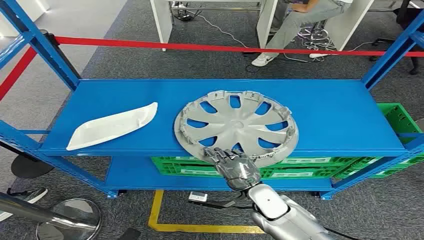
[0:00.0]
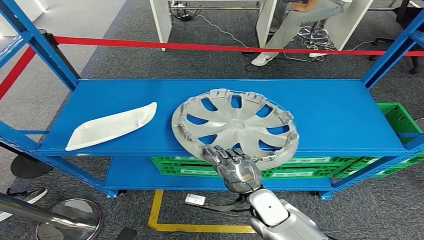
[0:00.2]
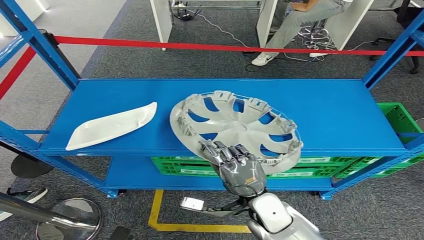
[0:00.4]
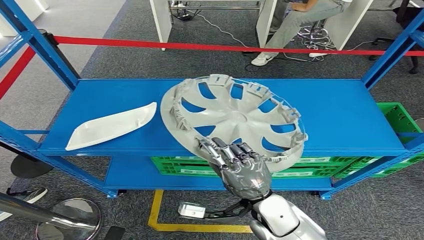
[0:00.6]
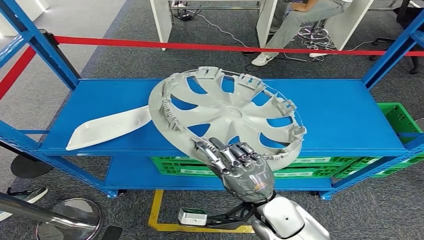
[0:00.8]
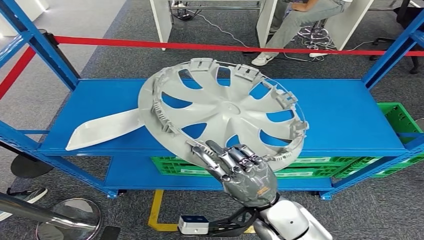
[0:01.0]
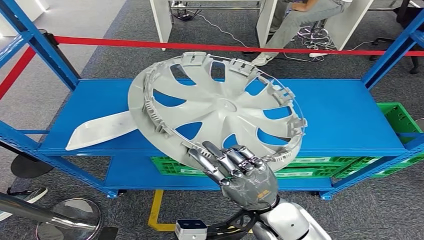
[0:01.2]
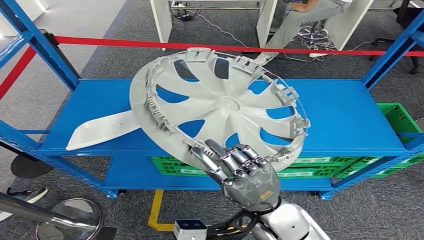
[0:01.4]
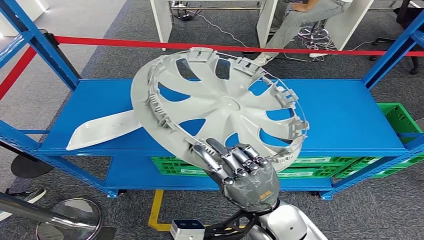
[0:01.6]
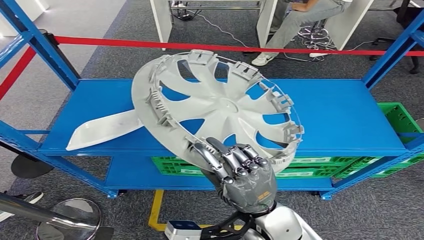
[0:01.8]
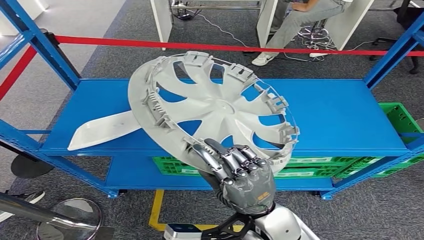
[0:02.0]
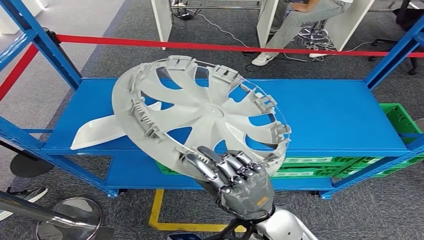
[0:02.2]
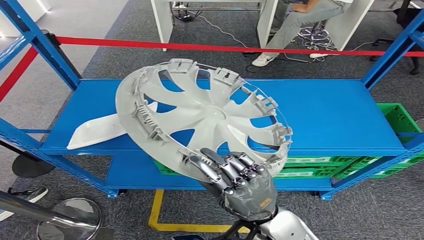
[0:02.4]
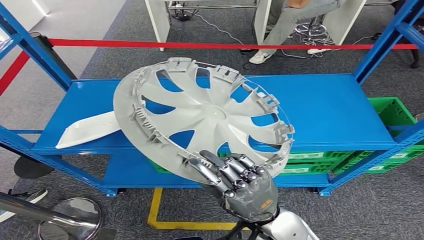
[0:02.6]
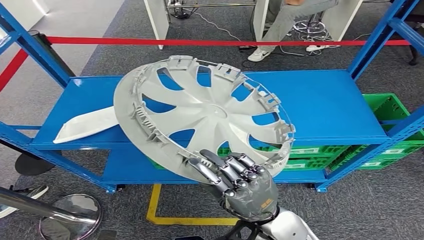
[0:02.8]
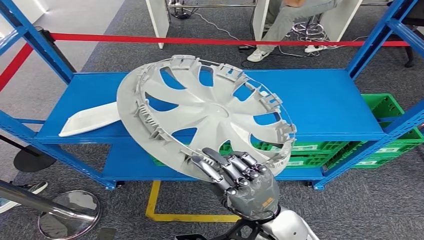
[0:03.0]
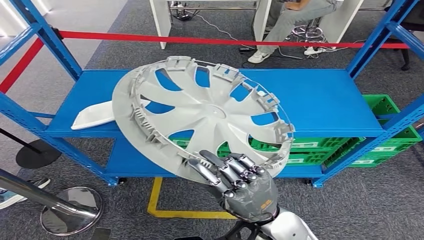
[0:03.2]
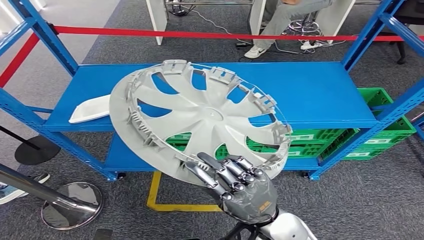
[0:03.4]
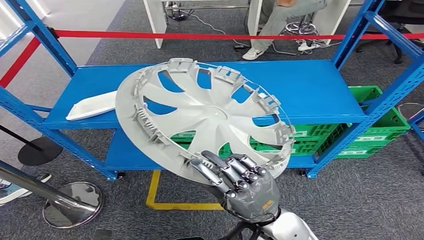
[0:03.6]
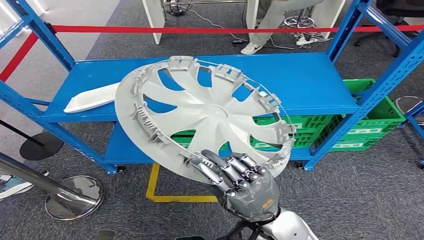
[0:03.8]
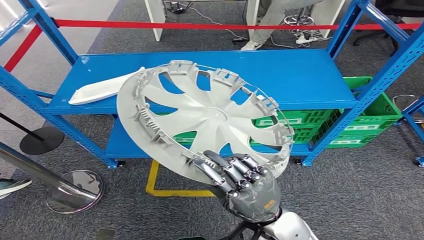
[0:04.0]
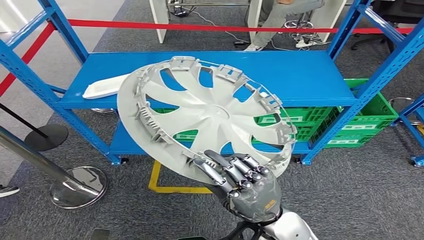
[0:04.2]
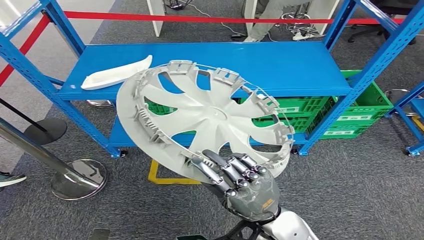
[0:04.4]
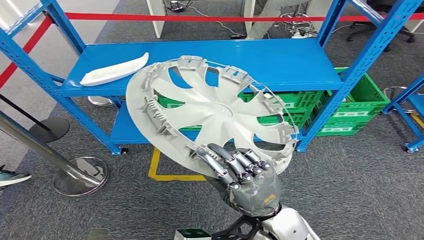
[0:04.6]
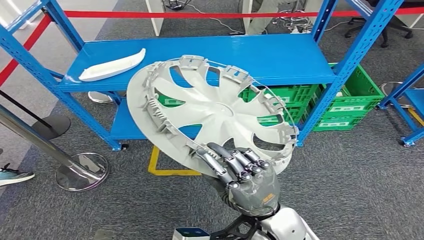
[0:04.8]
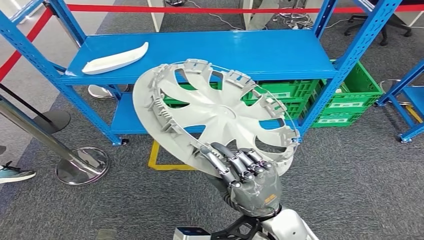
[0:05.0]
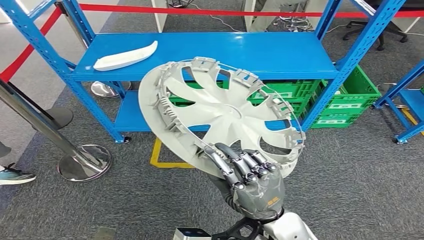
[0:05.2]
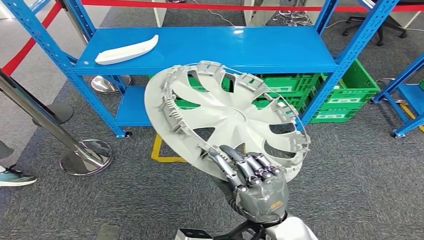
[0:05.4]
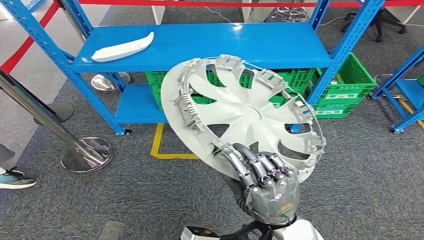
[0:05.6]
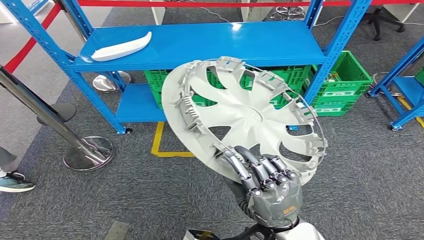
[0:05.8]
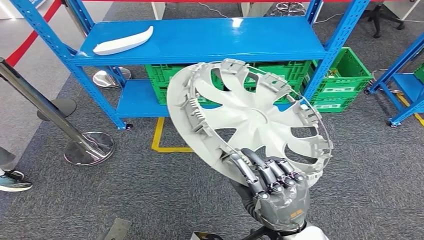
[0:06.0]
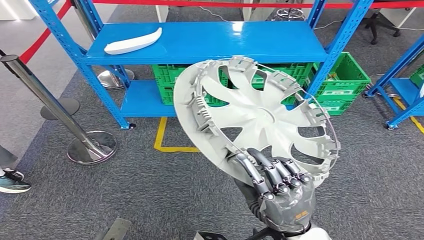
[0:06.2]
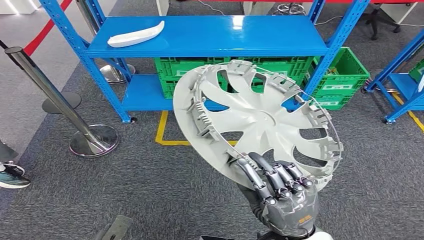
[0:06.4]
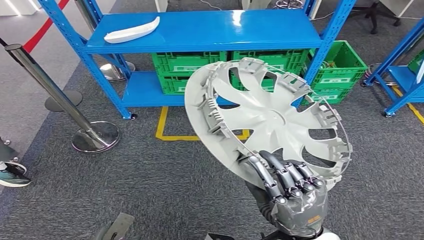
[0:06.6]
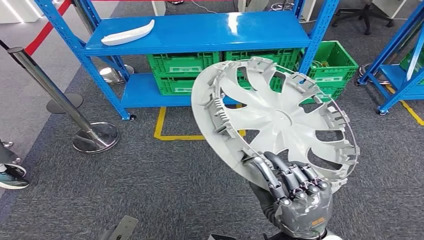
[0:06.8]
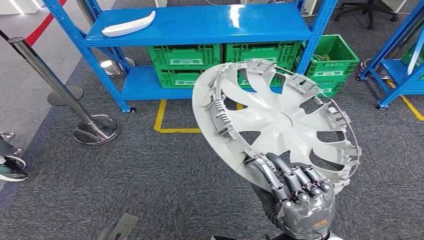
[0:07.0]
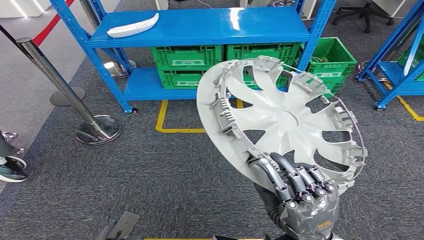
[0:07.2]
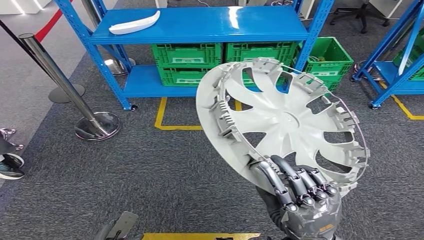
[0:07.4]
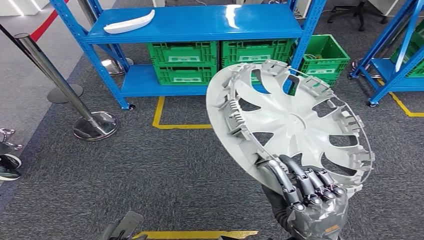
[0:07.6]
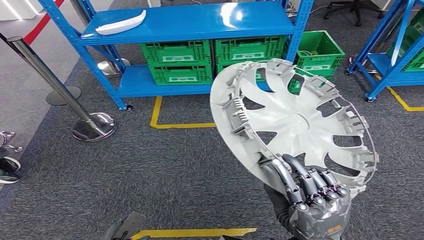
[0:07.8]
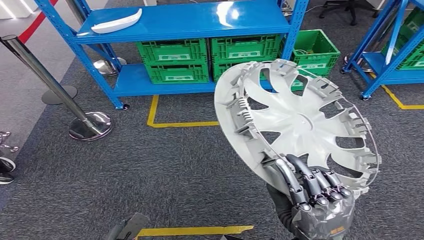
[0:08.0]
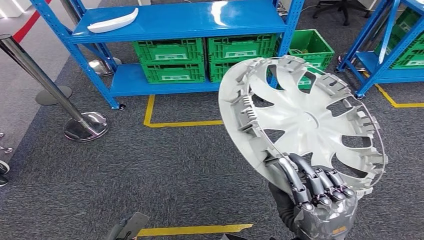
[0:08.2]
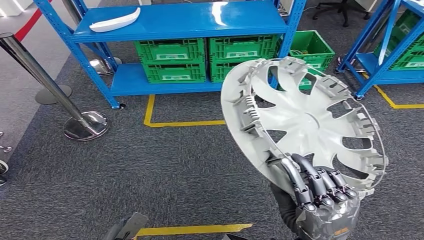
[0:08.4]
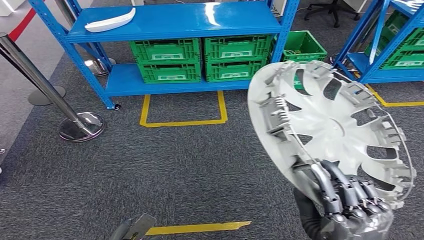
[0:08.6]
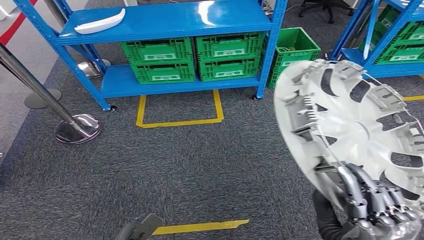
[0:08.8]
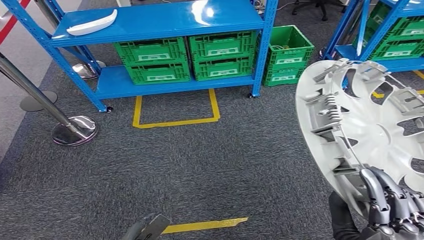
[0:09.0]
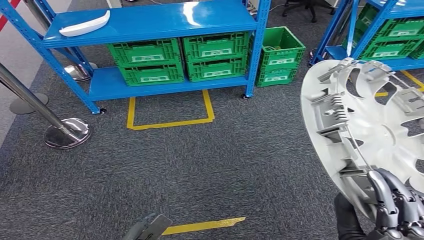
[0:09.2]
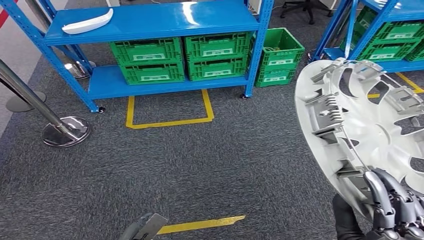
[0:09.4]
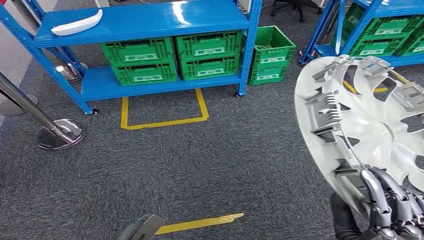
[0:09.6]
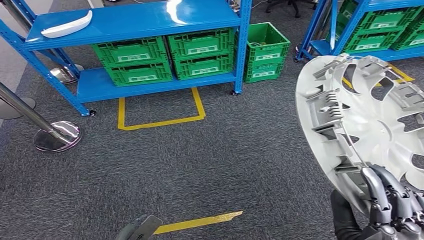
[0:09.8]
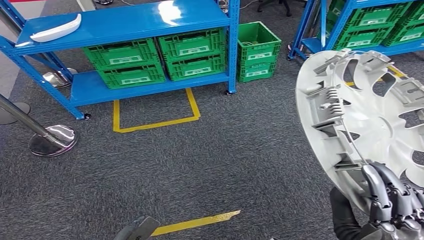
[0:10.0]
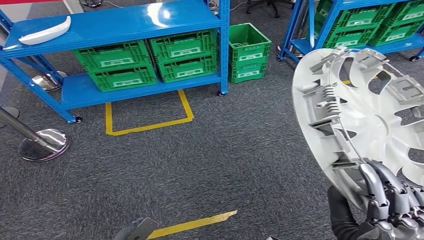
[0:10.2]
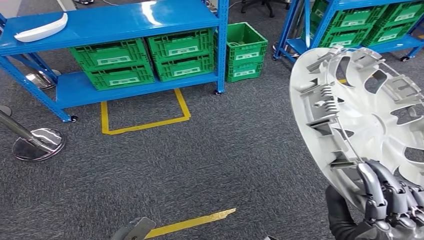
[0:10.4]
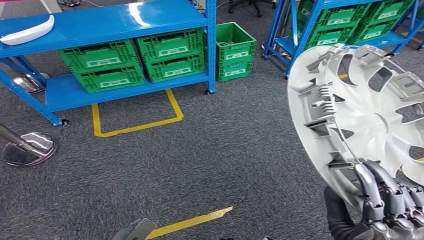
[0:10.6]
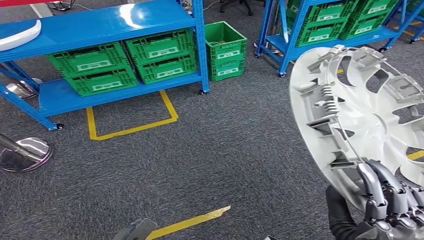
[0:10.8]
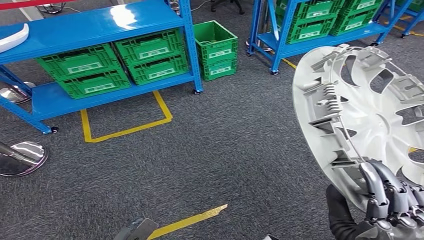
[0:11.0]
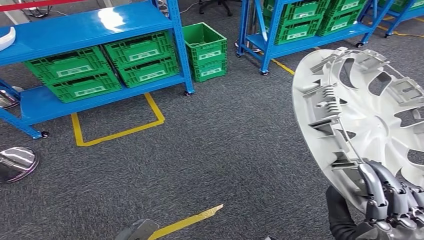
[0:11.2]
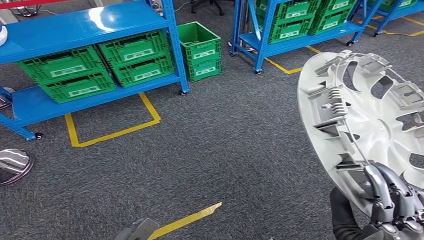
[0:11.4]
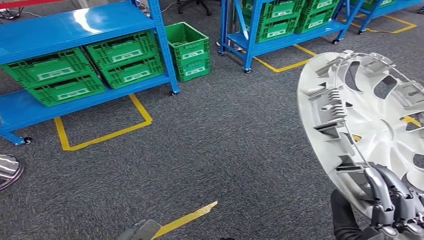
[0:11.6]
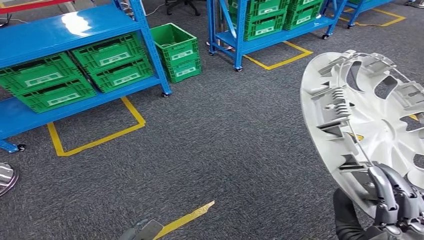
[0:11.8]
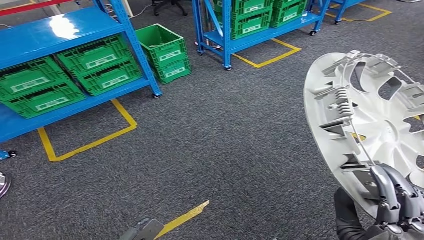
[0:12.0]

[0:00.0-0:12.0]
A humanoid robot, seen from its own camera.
Step, 0:00.0 to 0:03.4: Pick up the small component from the shelf.

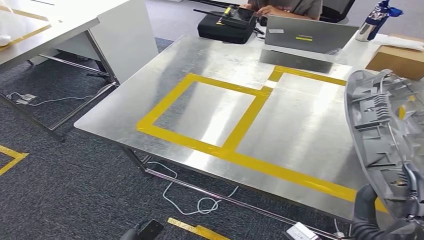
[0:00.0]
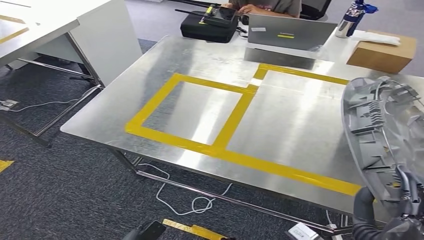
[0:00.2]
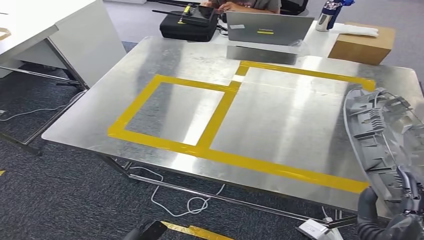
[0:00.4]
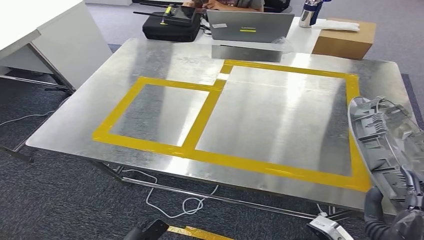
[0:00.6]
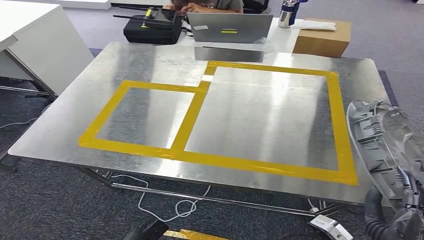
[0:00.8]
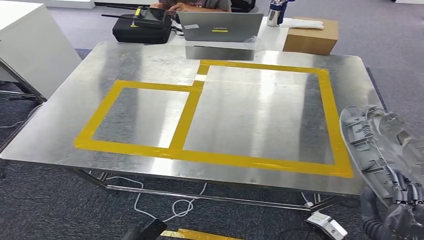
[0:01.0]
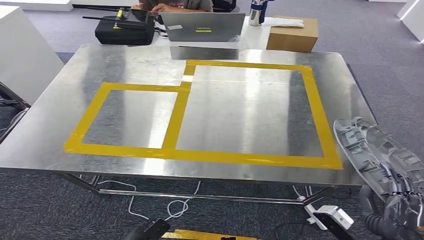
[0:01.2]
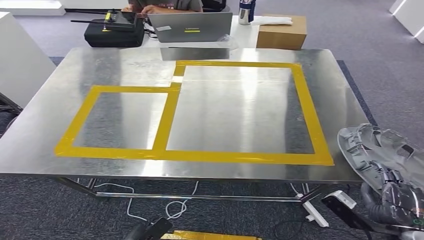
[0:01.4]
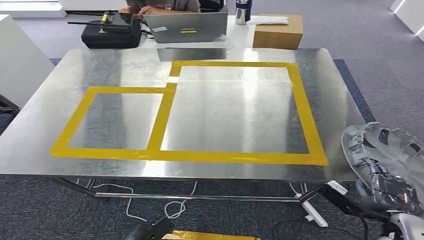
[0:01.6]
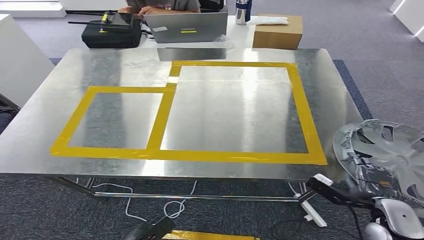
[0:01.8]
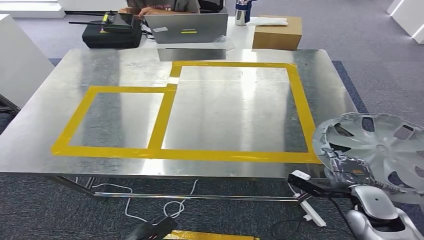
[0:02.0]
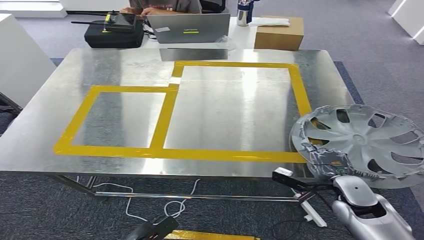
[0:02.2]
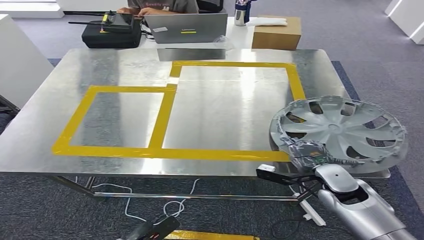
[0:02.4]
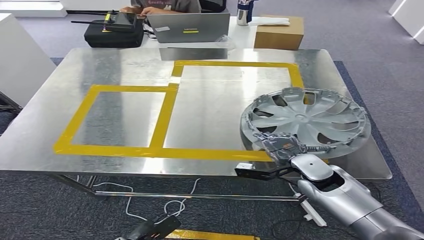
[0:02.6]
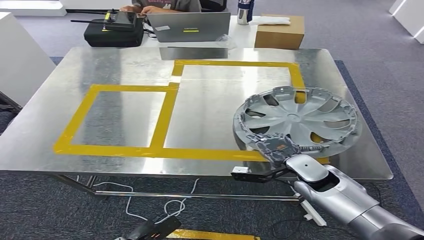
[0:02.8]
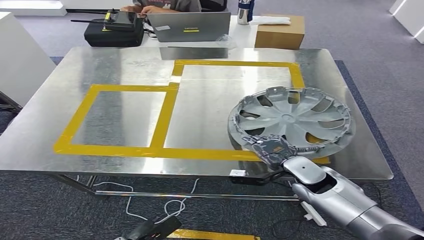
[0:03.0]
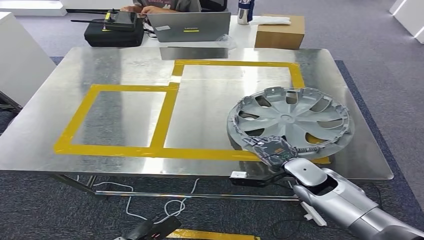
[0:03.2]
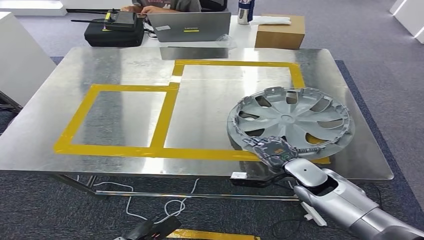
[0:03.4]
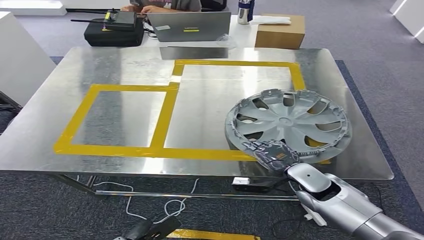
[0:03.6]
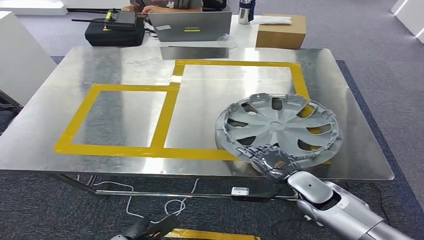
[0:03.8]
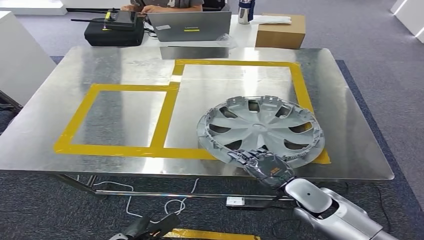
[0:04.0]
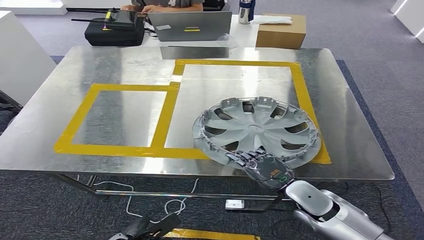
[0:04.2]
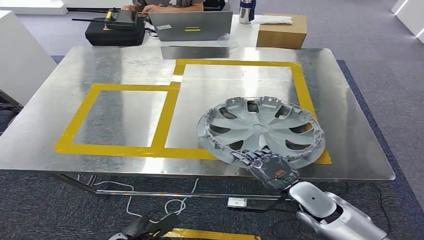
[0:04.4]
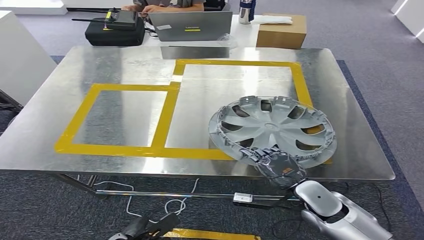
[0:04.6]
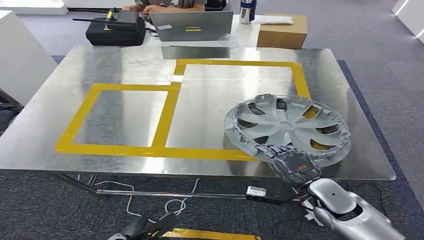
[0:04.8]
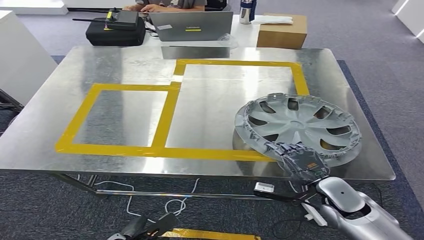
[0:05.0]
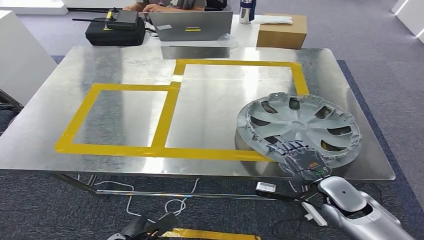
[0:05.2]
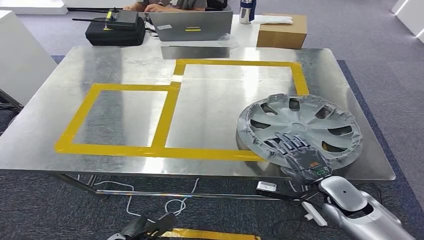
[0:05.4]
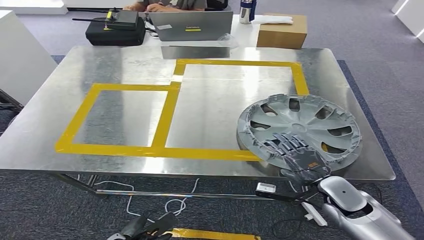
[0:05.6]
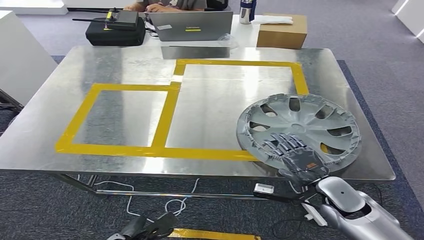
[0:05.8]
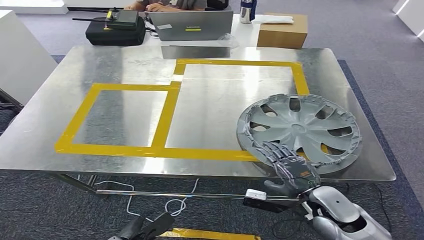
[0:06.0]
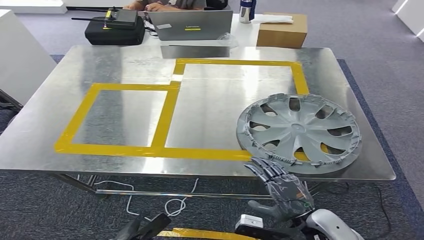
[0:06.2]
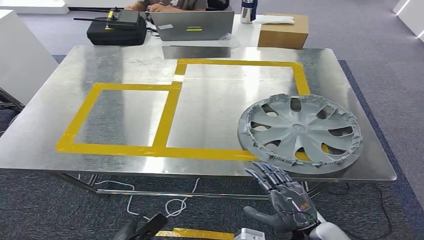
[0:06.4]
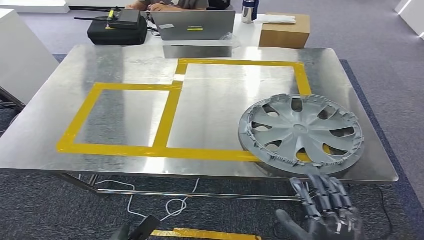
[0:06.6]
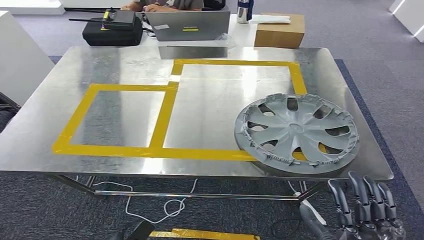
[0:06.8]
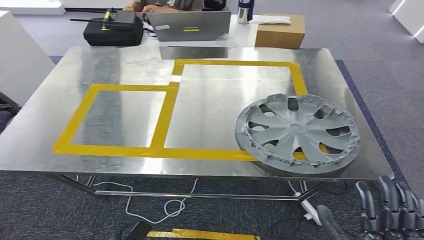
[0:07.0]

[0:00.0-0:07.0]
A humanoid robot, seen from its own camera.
0:01.4 to 0:02.8: The right hand heads forward and to the left, covering approximately 25 cm.
0:02.8 to 0:04.2: The right hand heads backward, covering about 5 cm.
0:04.2 to 0:05.6: The right hand shifts roughly 5 cm to the right.
0:05.6 to 0:07.0: The left hand heads backward, covering about 5 cm; the right hand travels backward by some 20 cm.
